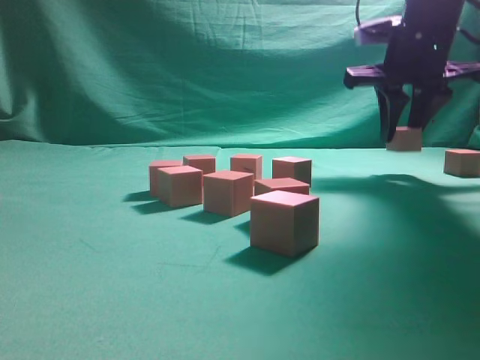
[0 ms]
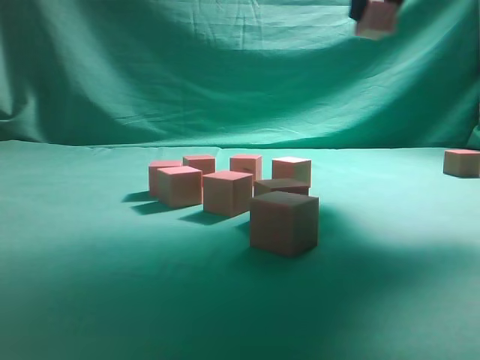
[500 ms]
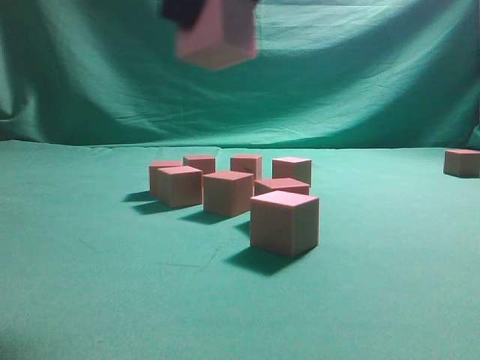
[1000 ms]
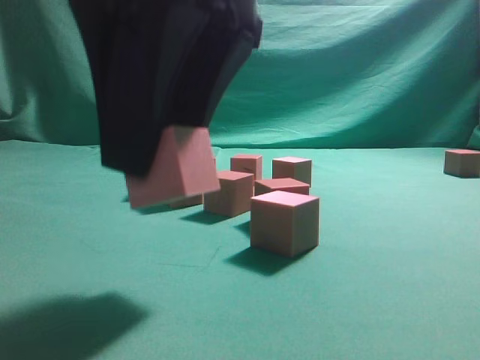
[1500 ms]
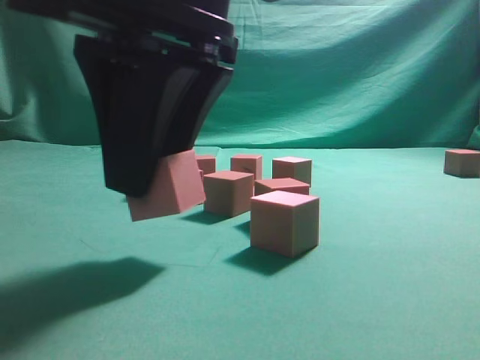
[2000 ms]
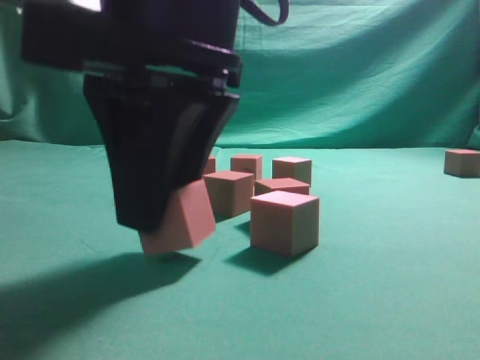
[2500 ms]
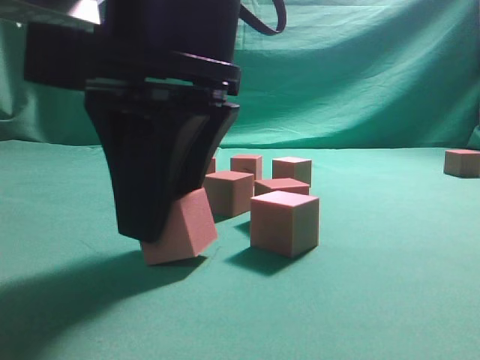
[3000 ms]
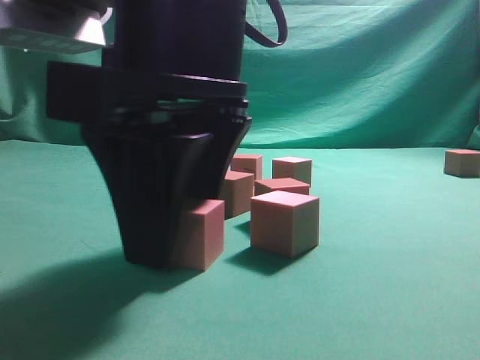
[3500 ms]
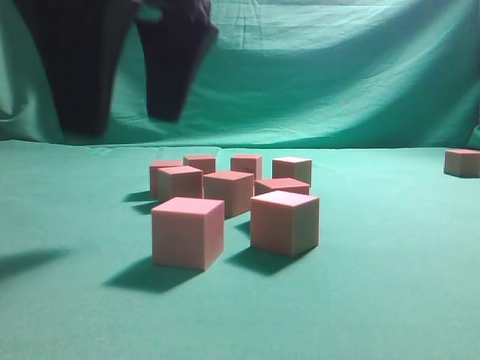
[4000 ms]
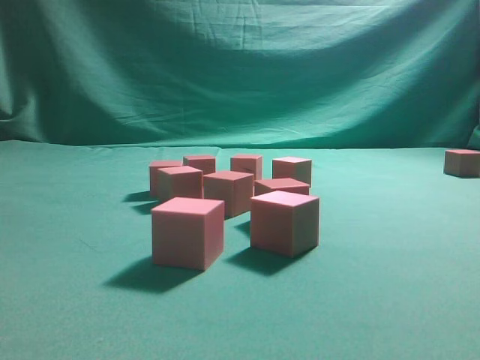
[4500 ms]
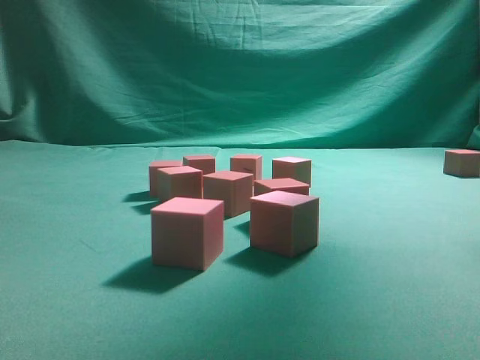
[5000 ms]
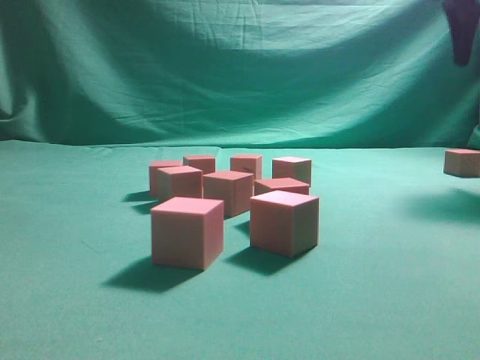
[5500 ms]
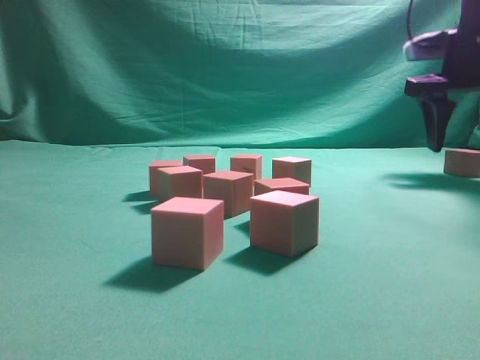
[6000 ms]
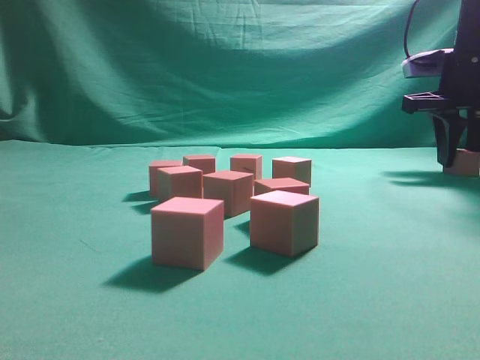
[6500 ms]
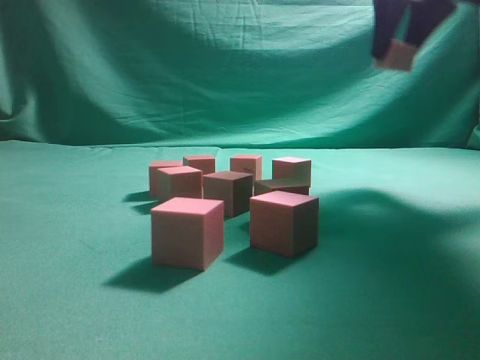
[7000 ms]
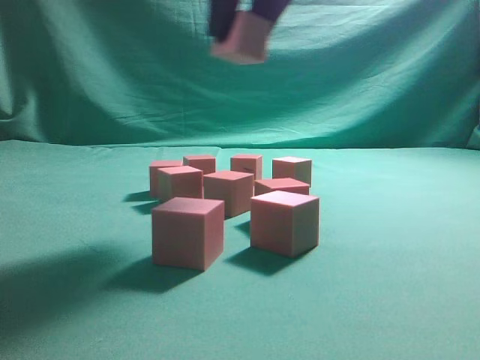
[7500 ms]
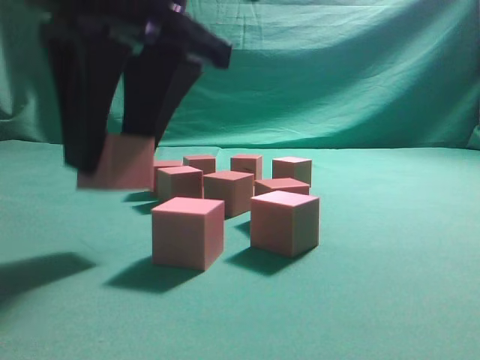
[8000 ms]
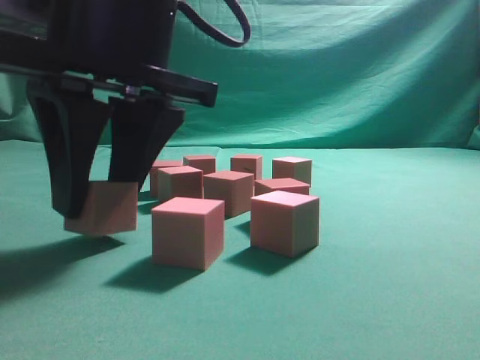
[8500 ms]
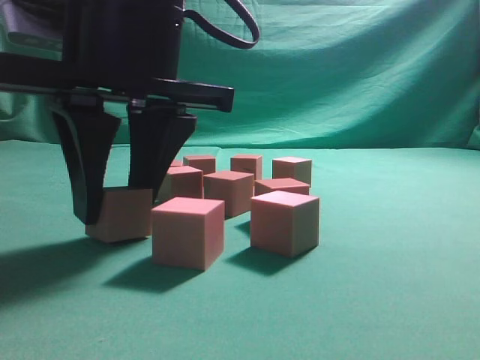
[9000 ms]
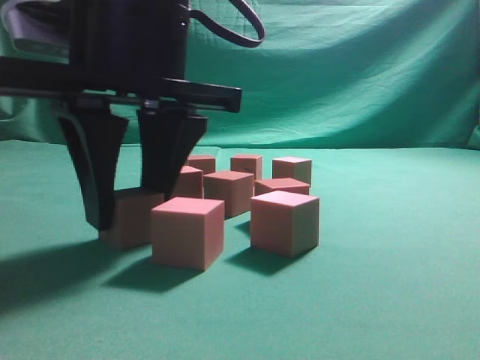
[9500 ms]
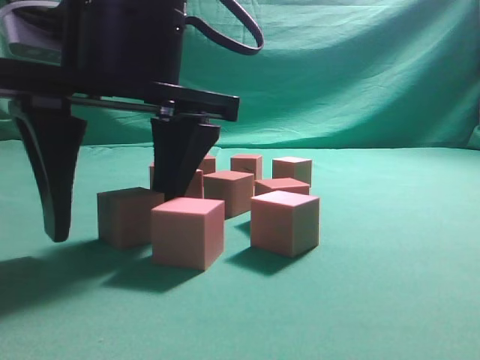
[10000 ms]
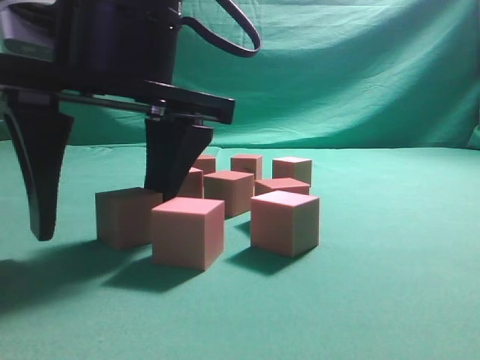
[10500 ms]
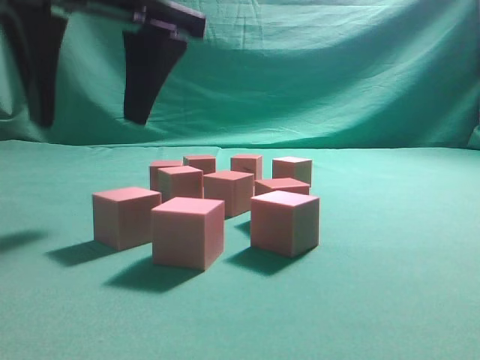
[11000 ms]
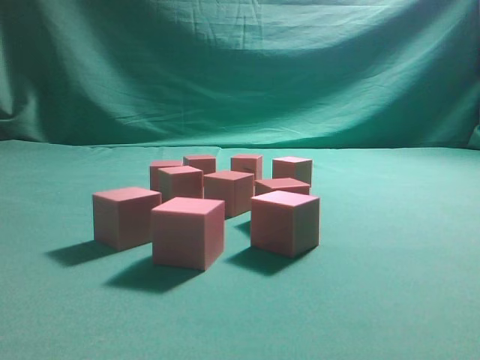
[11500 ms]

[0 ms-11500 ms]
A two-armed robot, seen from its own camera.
Task of the whole recording: pick up the multiple cubes in two columns one by one and place them in another position on the table.
Step, 500 ms to 4000 ms: Place the block at the correct position to assemble the letter S.
Step, 4500 ms to 6500 ms: Pick up the block on the table.
Step, 7000 ms to 11000 ms: Place the block at the correct position to assemble the letter S.
0 ms to 2000 ms: The right gripper moves backward and to the left, roughly 30 cm.
2000 ms to 4000 ms: The right gripper opens its fingers.
4000 ms to 6000 ms: The right gripper shifts roughly 40 cm to the right and forward.
6000 ms to 7500 ms: The right gripper travels to the left, backward and upward by approximately 30 cm, and closes.
7500 ms to 9500 ms: The right gripper is displaced downward, to the left and backward by some 15 cm.
9500 ms to 11500 ms: The right gripper travels upward by about 20 cm.
